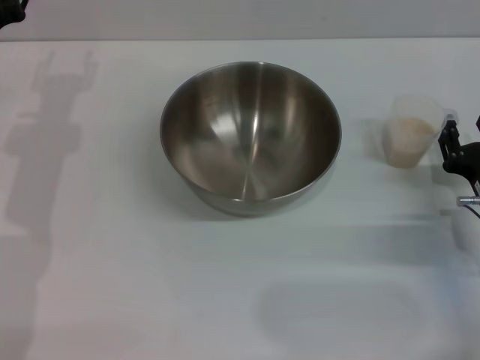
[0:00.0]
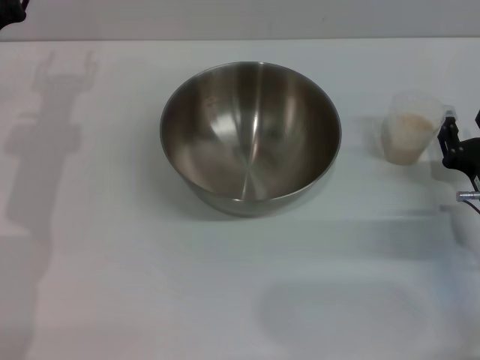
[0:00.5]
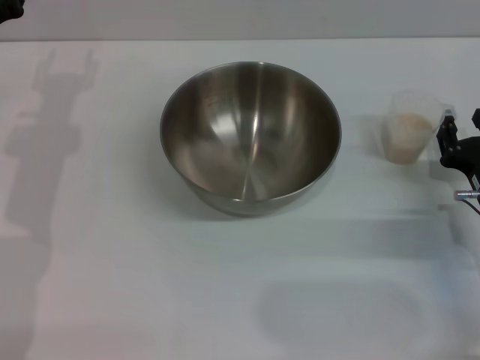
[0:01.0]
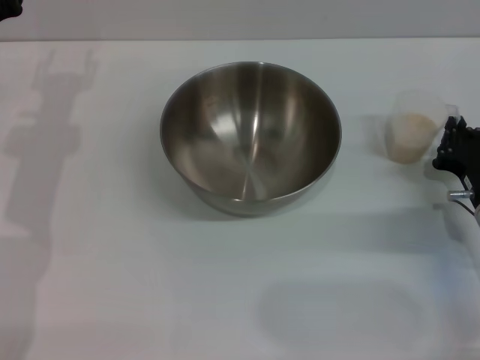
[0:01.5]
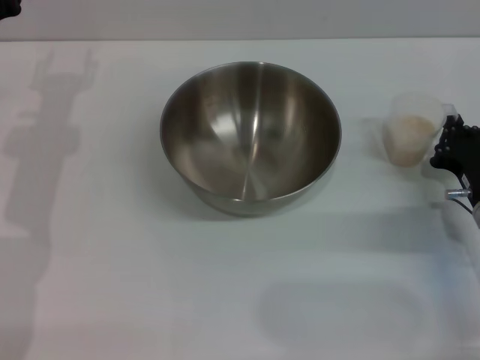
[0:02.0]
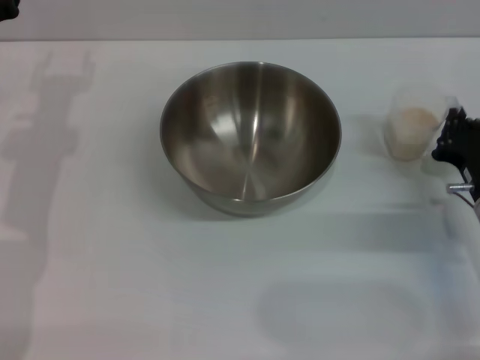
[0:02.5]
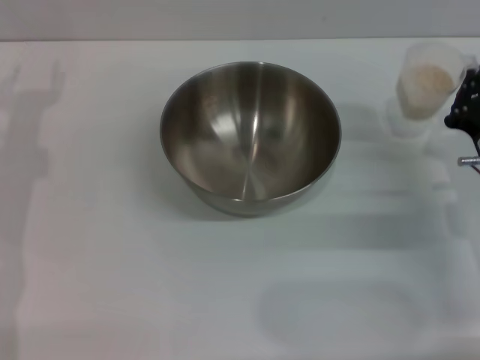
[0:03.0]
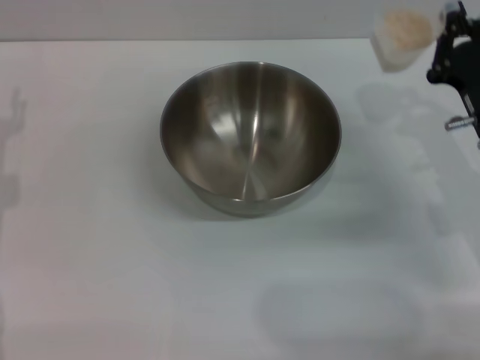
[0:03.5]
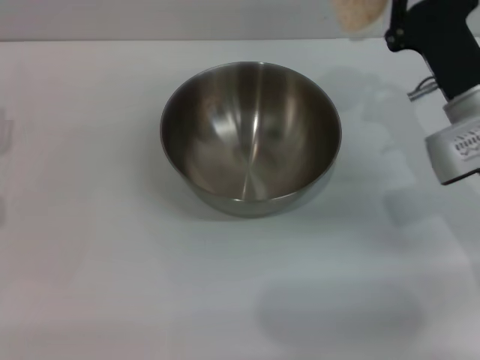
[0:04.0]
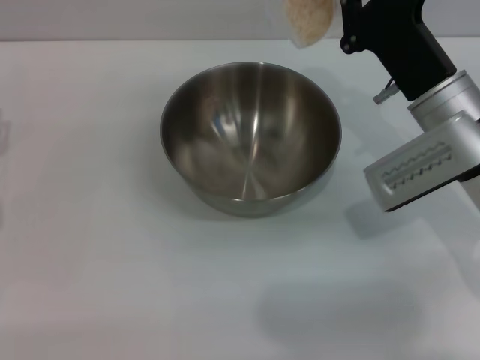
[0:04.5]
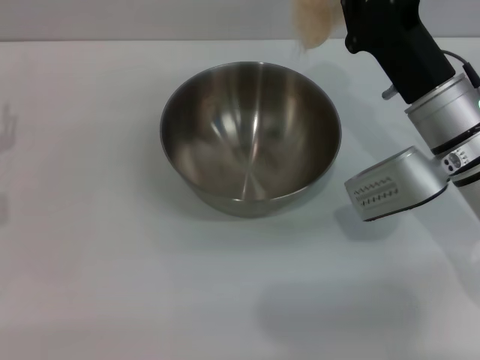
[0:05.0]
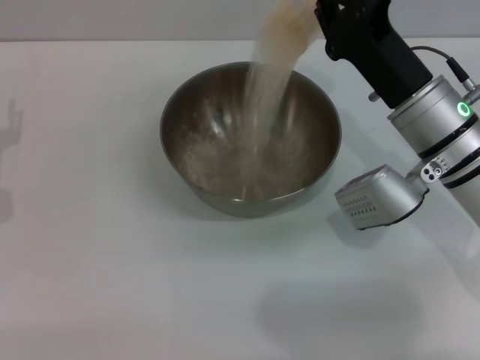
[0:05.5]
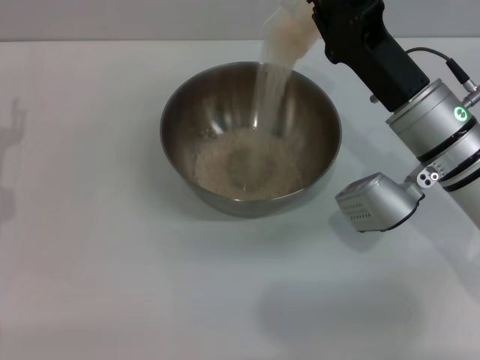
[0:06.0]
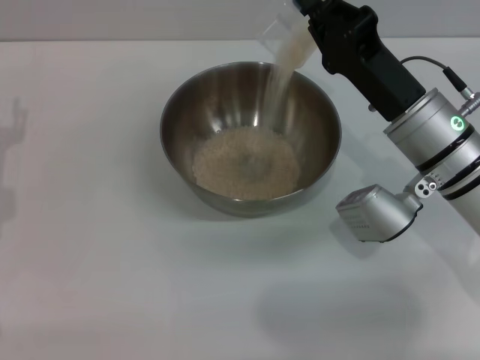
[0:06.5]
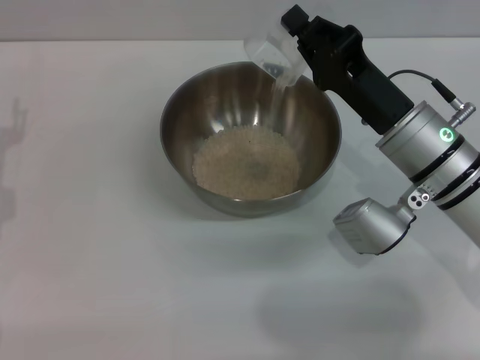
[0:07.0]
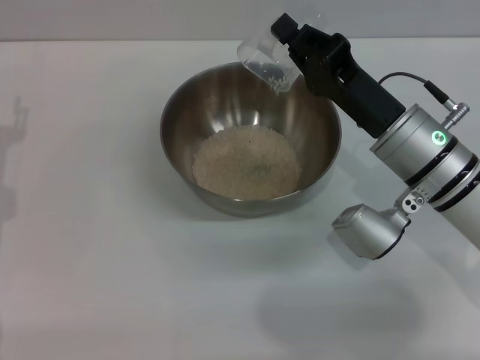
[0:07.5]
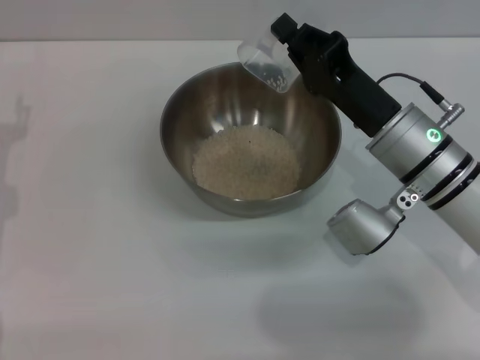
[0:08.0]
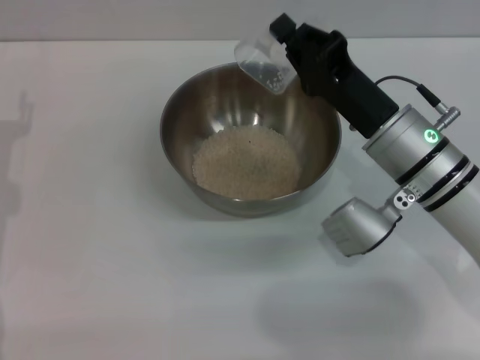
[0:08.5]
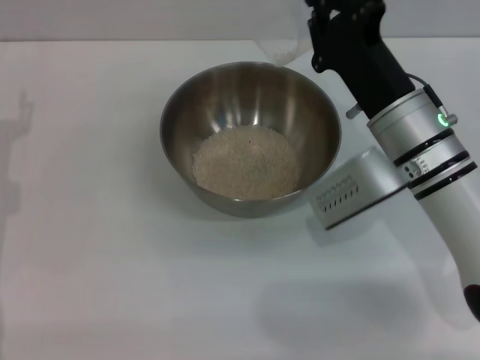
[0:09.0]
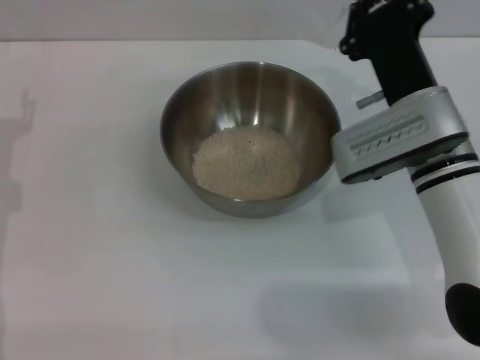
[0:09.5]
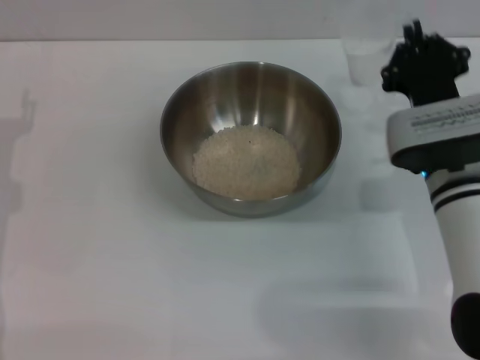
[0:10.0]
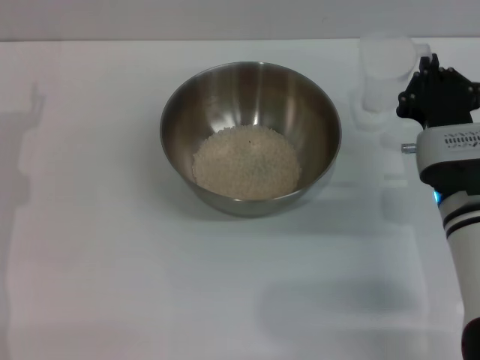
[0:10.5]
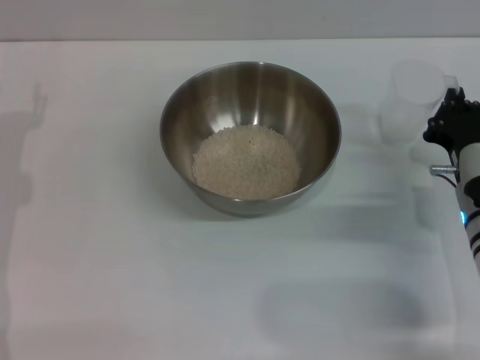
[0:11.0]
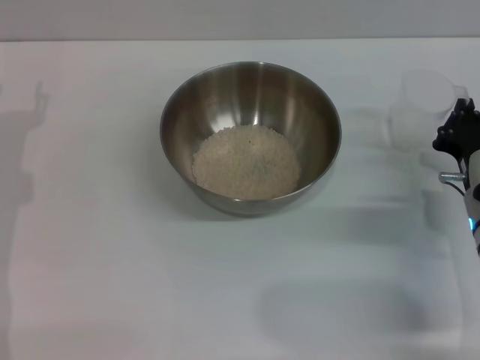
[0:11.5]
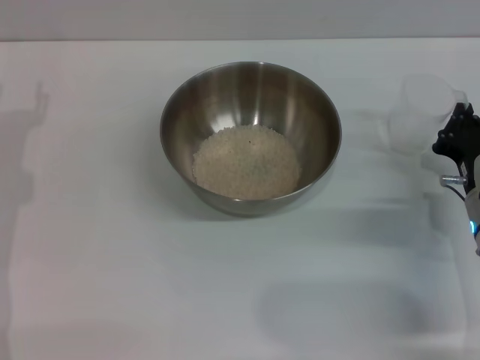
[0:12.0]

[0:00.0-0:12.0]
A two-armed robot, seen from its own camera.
Task of the whole recording: Place the bowl in the middle of the table with one hand and pour the rice from the grain cup into it with the other hand.
Step, 0:00.0 to 0:02.5: Pick up the cup with rice in it with the right gripper.
Step, 0:03.0 to 0:08.5: Pour the rice from the cup into the bowl with the right gripper.
0:00.0 to 0:02.0: The right gripper closes its fingers.
0:02.0 to 0:04.0: The left gripper travels backward, downward and to the left by roughly 15 cm, while the right gripper travels upward and forward by about 10 cm.
0:06.0 to 0:08.0: There are only small adjustments of the grippers.
0:10.0 to 0:12.0: The right gripper is displaced to the right and downward by approximately 10 cm.

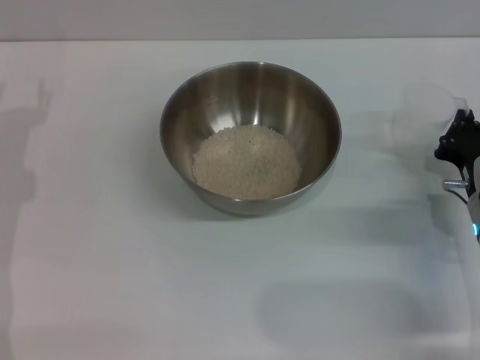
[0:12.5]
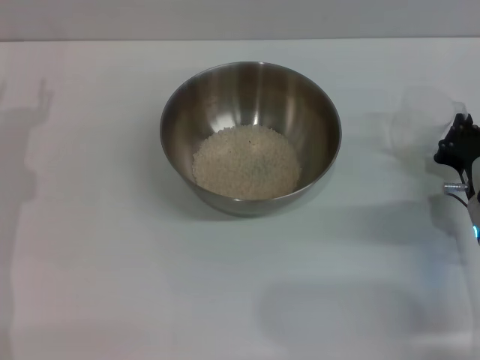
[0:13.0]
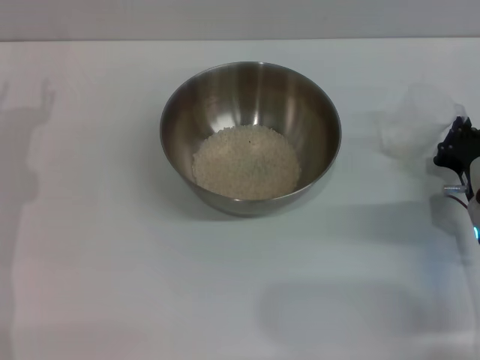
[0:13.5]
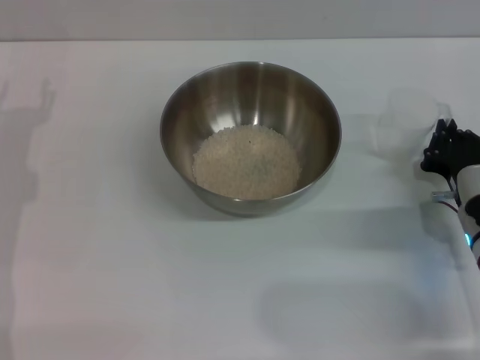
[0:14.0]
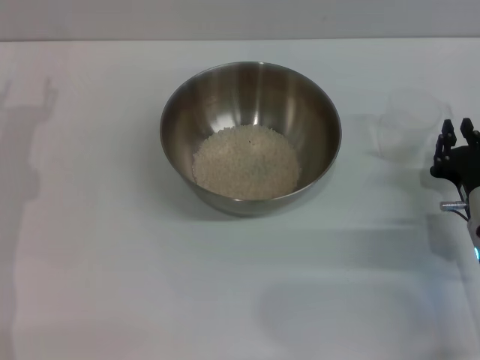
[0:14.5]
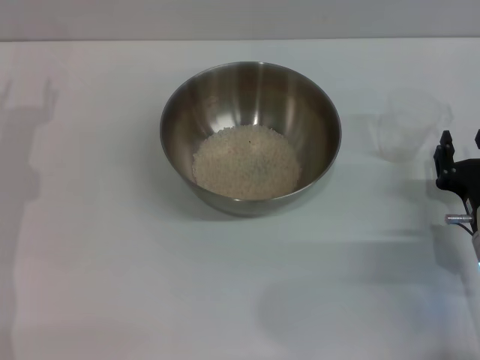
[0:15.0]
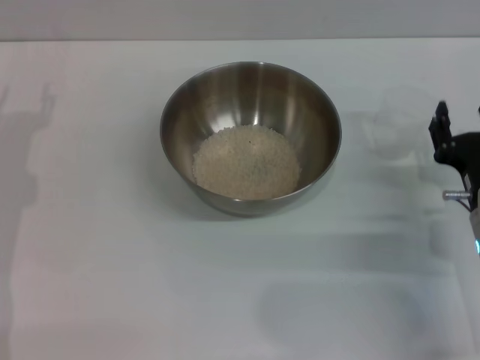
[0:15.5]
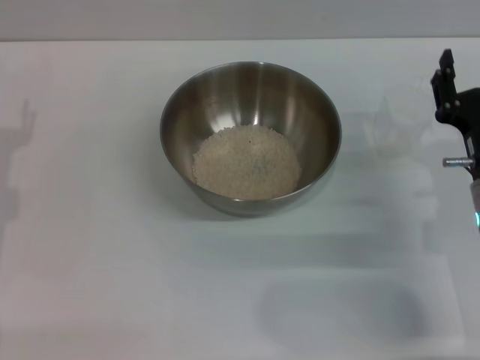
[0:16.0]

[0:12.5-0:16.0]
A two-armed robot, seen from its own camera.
Task of the whole recording: Place the bowl in the middle of the table with one hand and pour the rice from the grain cup into it with the other hand.
Step, 0:12.5 to 0:14.5: Place the cup on the table with the right gripper.
0:12.5 to 0:14.5: The right gripper opens its fingers.
0:14.5 to 0:16.0: The right gripper opens its fingers.
